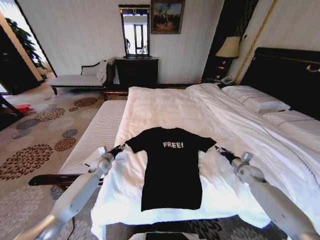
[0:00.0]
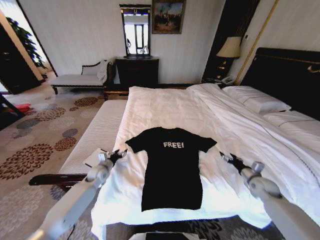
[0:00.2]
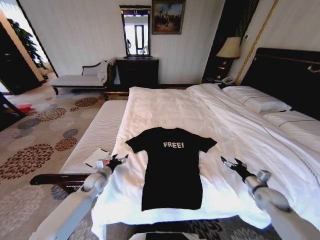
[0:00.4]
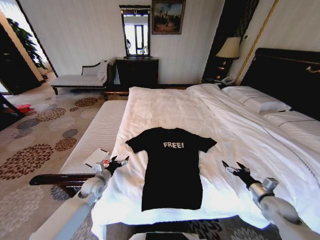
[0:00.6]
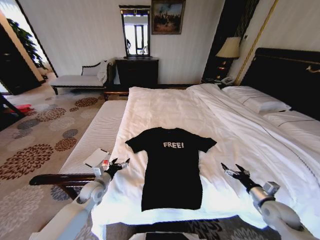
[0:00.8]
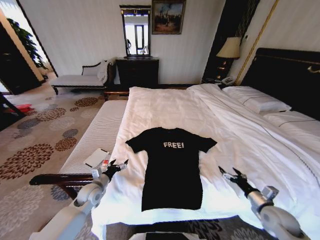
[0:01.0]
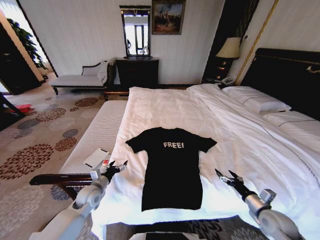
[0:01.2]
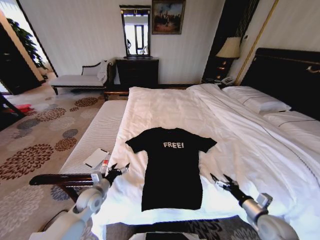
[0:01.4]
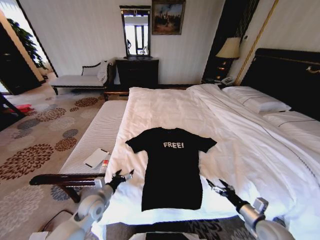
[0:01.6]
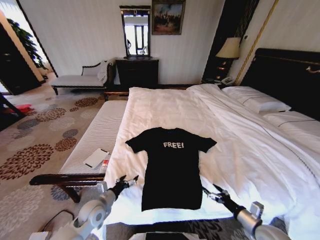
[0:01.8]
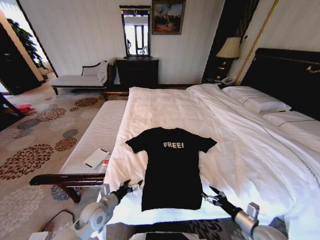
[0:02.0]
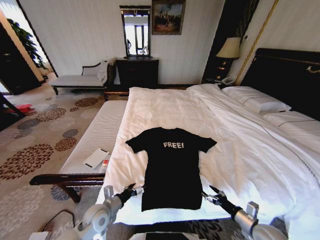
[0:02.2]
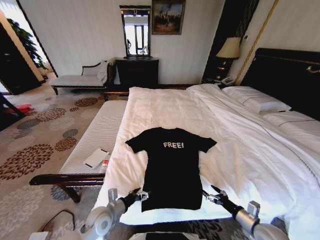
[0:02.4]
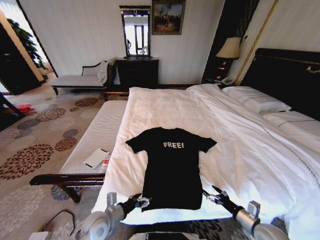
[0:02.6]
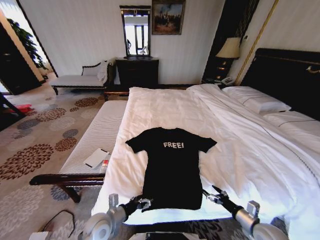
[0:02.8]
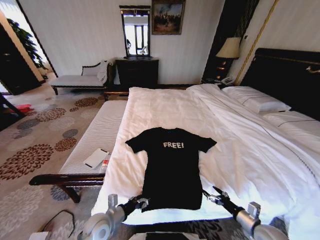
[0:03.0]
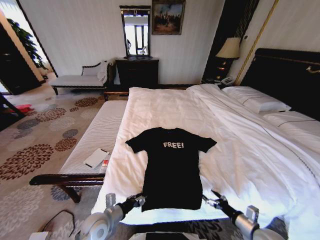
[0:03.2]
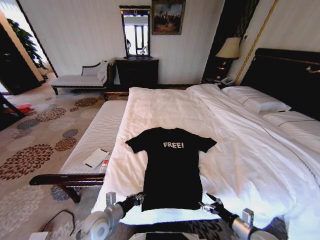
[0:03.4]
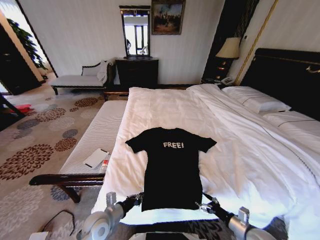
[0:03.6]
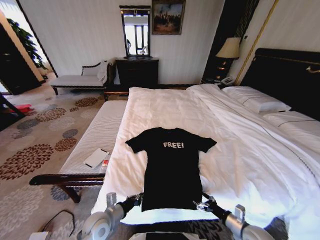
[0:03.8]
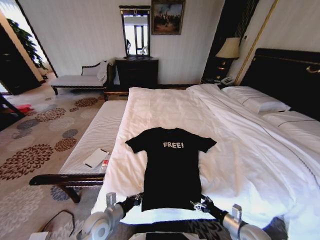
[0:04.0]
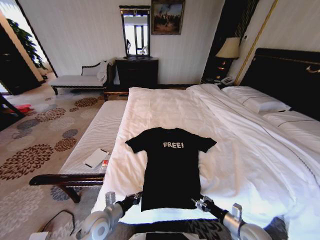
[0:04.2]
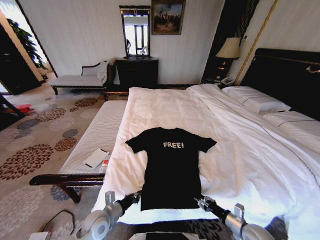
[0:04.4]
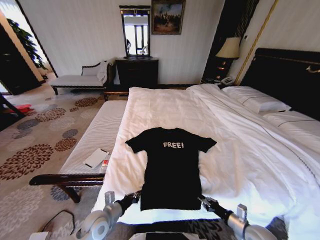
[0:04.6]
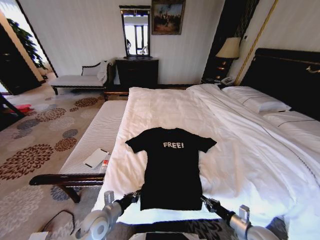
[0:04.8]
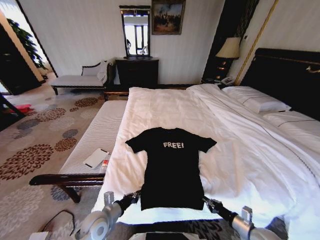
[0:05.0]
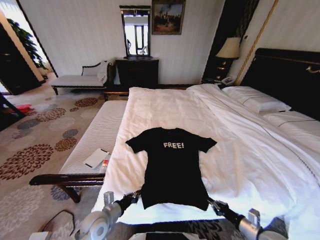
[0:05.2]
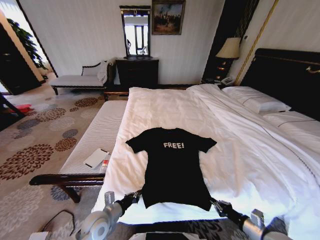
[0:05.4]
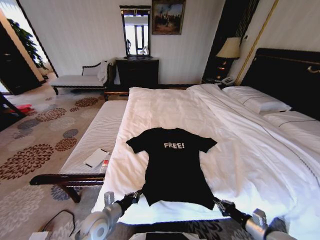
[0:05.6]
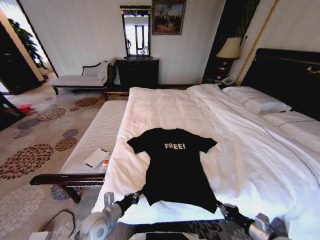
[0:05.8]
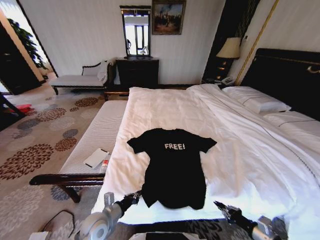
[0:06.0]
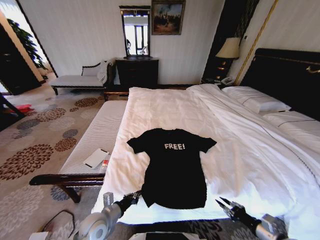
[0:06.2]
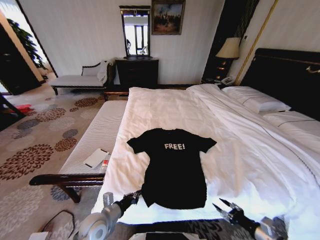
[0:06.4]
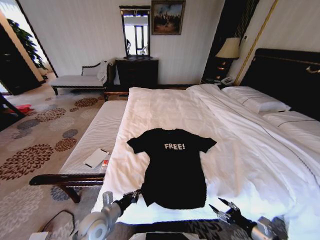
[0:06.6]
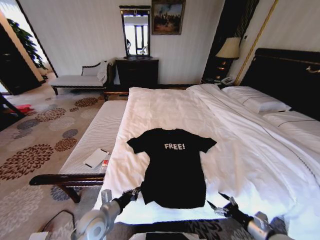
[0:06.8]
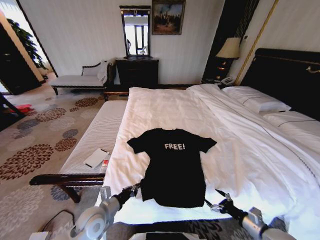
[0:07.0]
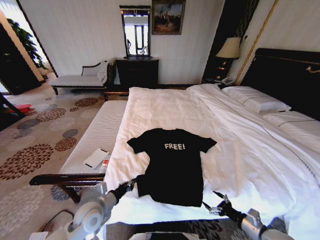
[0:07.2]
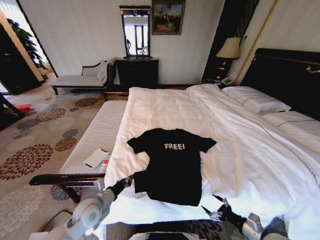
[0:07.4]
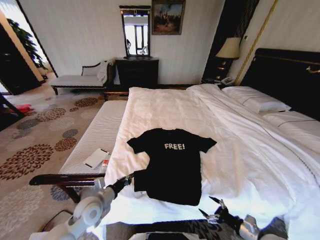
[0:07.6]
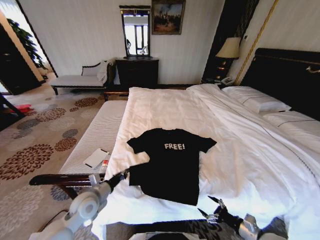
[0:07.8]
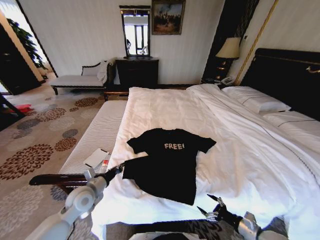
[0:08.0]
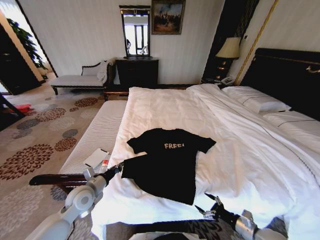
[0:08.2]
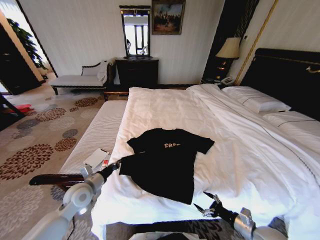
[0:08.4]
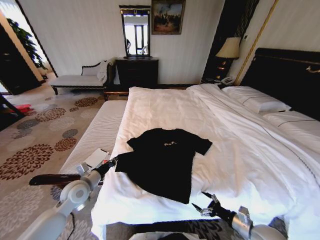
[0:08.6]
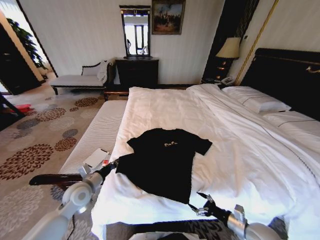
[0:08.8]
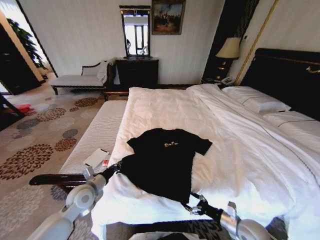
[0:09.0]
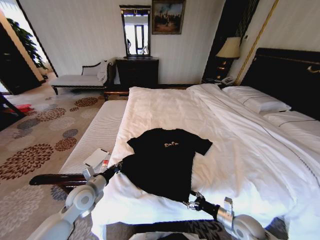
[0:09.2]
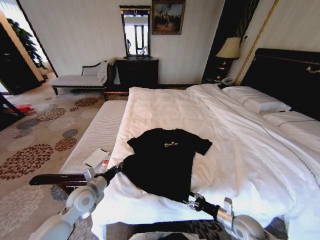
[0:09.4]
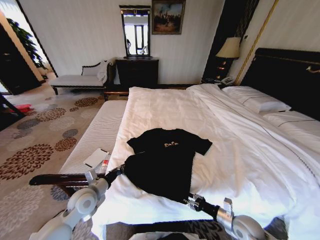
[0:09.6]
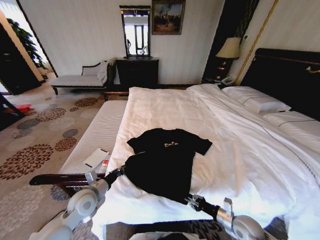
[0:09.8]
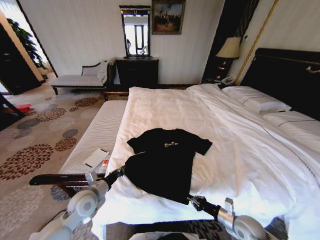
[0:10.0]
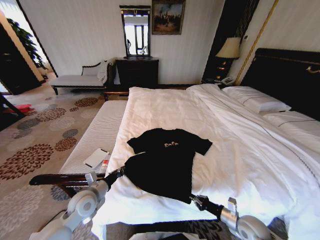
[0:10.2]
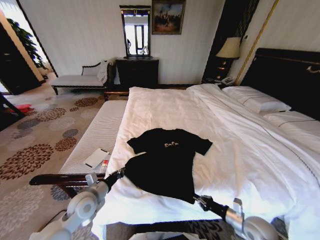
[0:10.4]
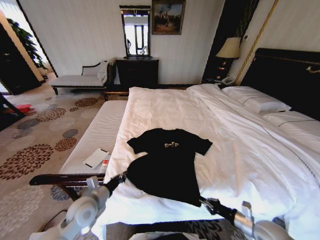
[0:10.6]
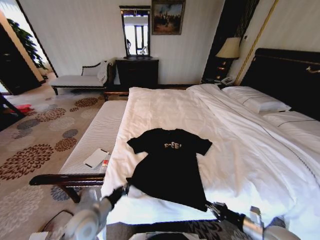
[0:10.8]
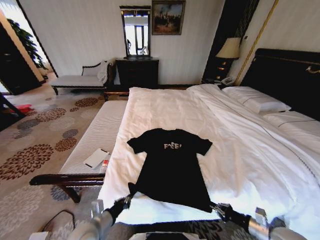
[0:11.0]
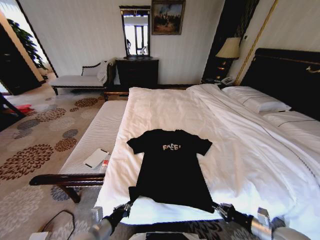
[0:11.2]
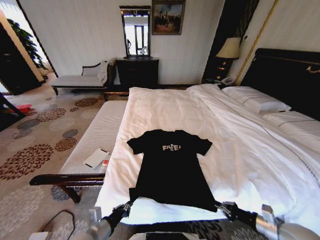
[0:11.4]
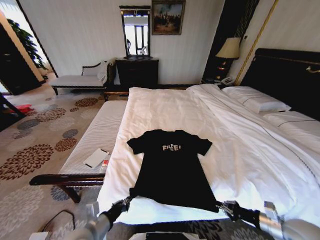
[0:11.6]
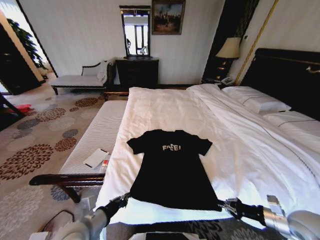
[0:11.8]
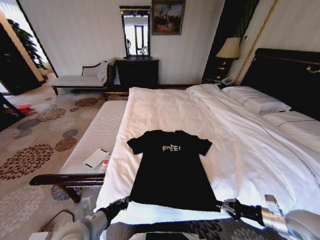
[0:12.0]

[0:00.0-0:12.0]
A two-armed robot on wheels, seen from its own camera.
Task of the whole recording: Fold the clothes on the bed.
0:00.0 to 0:01.6: The grippers both shift backward by approximately 20 cm. The left gripper opens, while the right gripper opens its fingers.
0:01.6 to 0:03.0: The left gripper is displaced backward by some 5 cm.
0:03.0 to 0:04.4: The left gripper closes up, while the right gripper closes.
0:04.4 to 0:06.0: The right gripper goes some 10 cm upward and backward, and closes its fingers.
0:06.0 to 0:07.6: The right gripper opens up. The left gripper changes place by about 5 cm.
0:07.6 to 0:09.0: The right gripper shifts roughly 5 cm to the left; the left gripper changes place by about 5 cm.
0:09.0 to 0:10.4: The right gripper closes up.
0:10.4 to 0:12.0: The left gripper shifts roughly 10 cm backward and upward. Meanwhile the right gripper shifts some 15 cm upward and to the right.

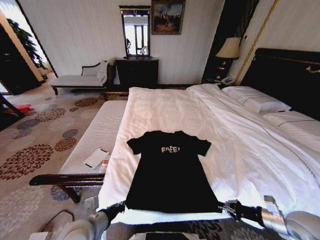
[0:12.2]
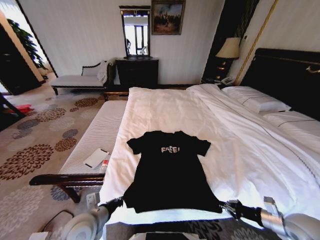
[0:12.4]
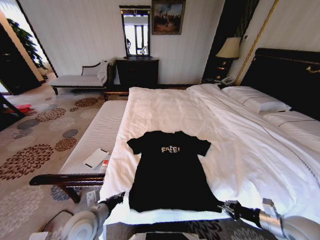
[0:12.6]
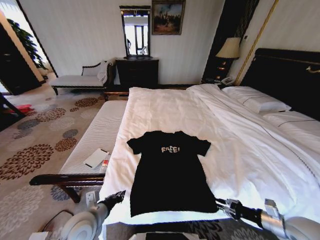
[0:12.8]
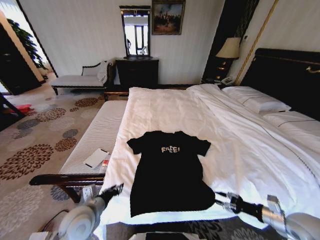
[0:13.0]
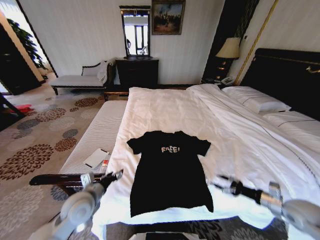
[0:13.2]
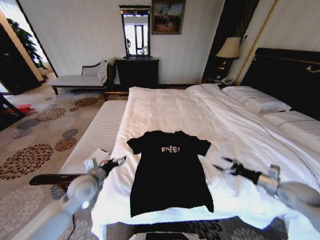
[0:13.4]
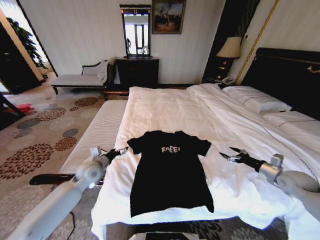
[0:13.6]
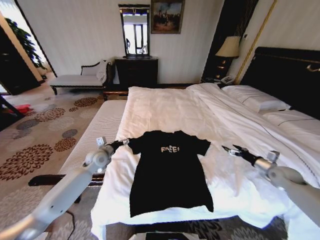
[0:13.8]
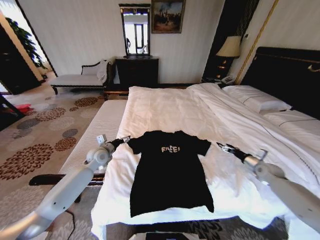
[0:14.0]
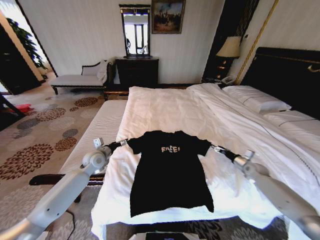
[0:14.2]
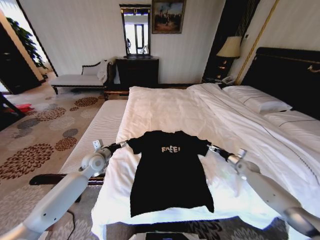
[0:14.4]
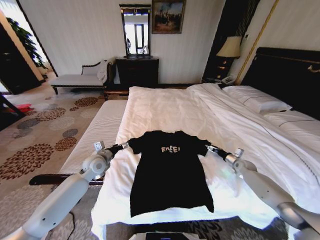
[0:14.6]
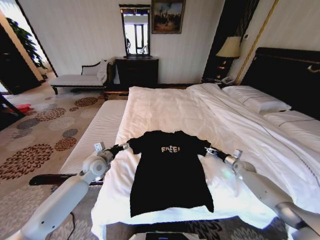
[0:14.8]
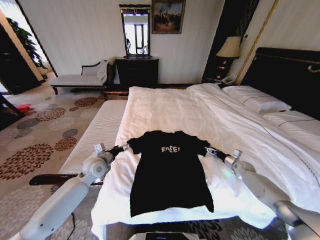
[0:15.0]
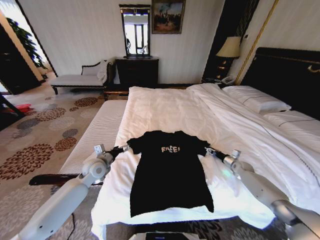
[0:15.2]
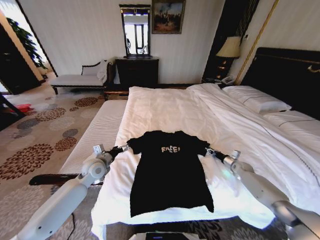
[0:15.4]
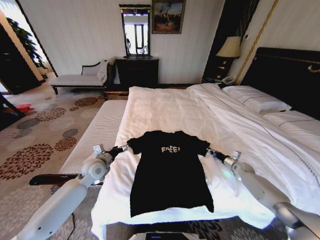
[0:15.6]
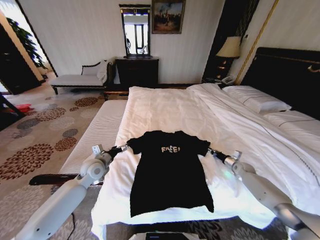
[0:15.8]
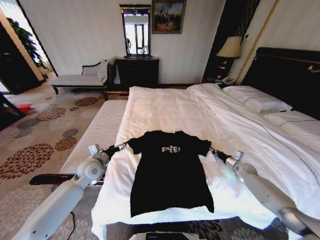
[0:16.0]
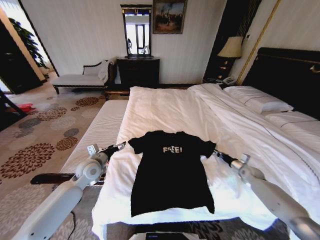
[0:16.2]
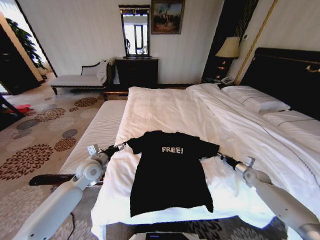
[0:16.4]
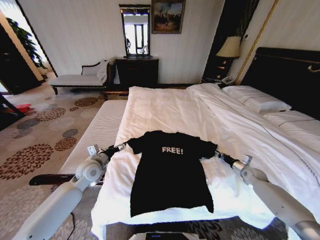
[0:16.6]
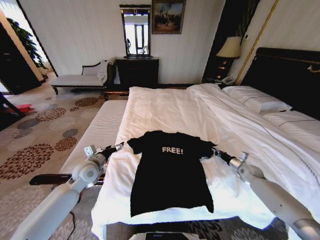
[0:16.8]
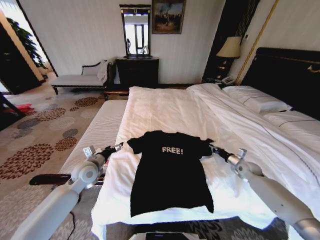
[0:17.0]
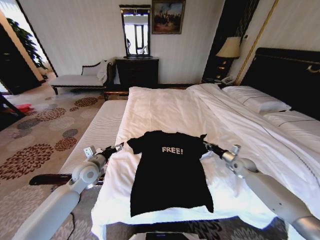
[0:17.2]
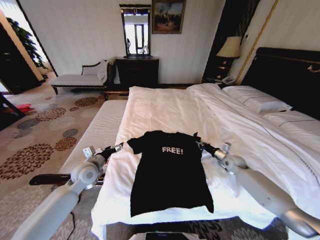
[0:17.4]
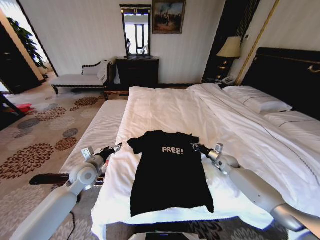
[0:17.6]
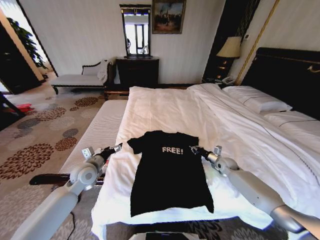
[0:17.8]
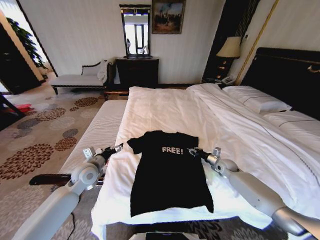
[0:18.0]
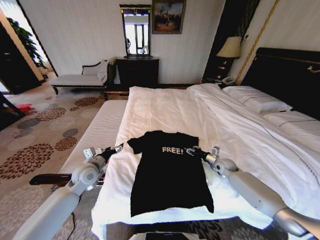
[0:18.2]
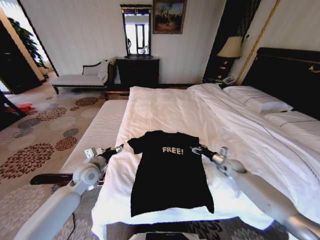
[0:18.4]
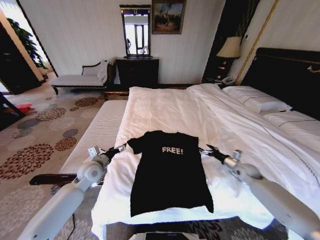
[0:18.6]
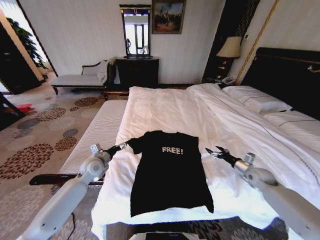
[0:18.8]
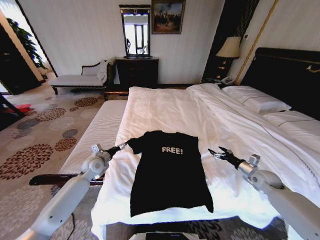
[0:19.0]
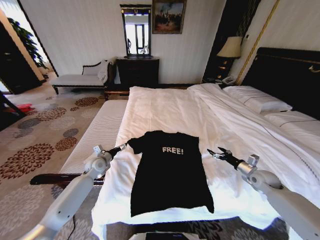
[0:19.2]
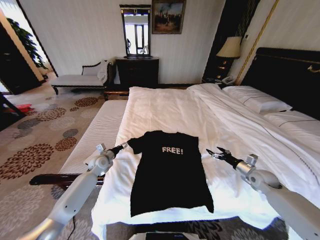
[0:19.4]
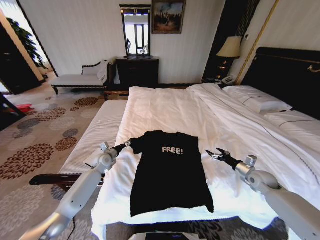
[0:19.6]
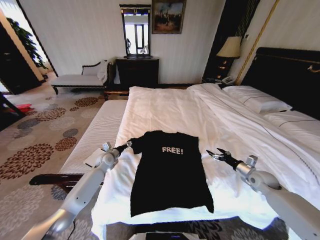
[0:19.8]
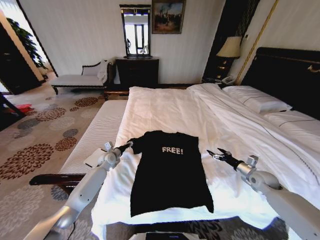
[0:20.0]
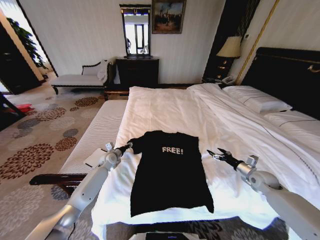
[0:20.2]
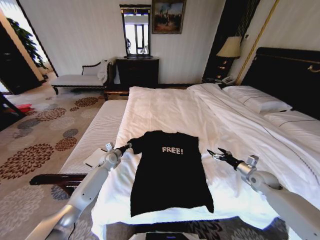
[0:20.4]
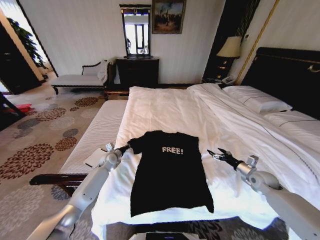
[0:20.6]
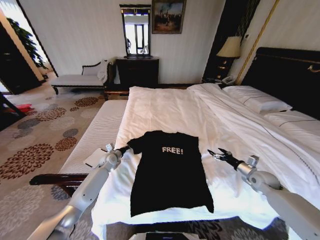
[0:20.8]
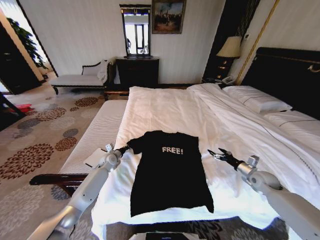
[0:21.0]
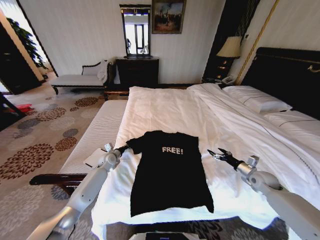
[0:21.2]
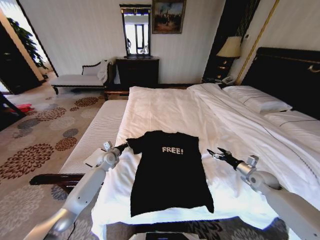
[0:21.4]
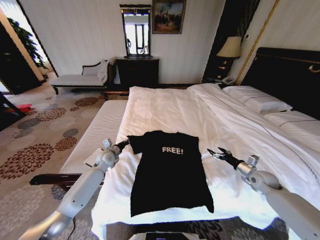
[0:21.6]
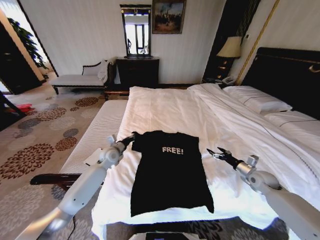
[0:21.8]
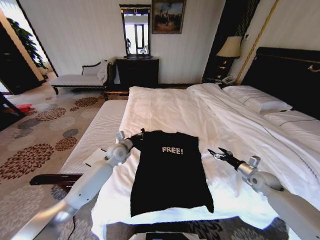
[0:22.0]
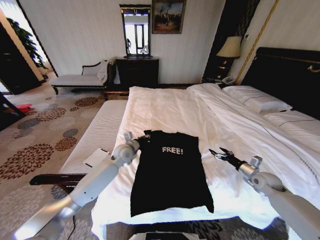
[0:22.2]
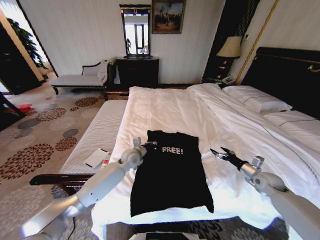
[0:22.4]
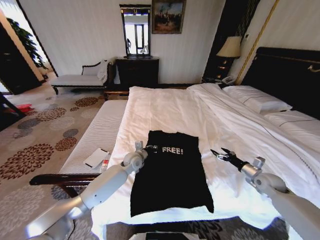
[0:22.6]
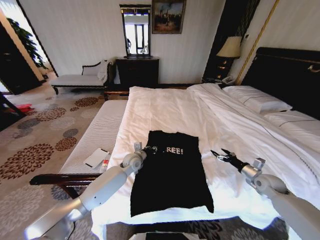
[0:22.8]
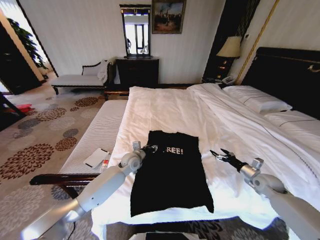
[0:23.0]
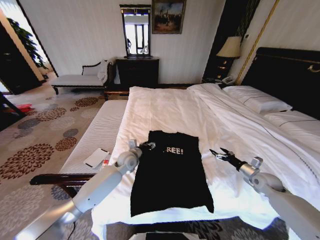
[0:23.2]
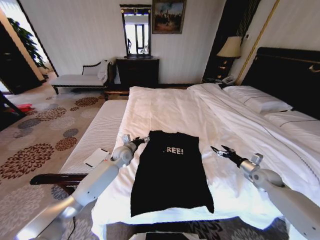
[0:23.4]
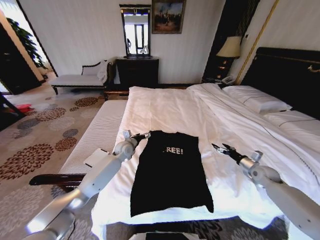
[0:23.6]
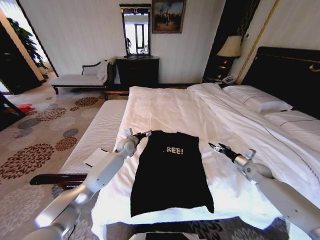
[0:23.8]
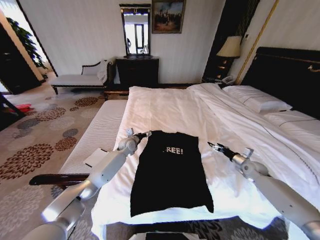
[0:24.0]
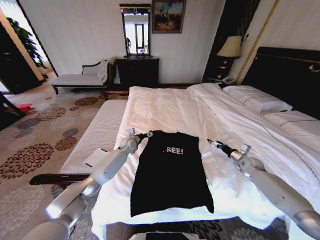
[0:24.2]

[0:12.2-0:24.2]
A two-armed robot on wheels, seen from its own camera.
Task of the whole recording: Fold the clothes on the bed.
0:12.2 to 0:13.8: The left gripper moves forward, roughly 25 cm, and opens, while the right gripper moves forward and to the right, about 20 cm, and opens up.
0:13.8 to 0:15.2: The right gripper travels downward, forward and to the left by approximately 15 cm.
0:15.2 to 0:16.6: The right gripper heads backward, covering approximately 5 cm, and closes up.
0:16.6 to 0:18.2: The right gripper shifts approximately 15 cm to the left, and opens its fingers.
0:18.2 to 0:19.8: The left gripper is displaced forward and downward by roughly 15 cm. Meanwhile the right gripper is displaced to the right and backward by some 15 cm, and opens up.
0:19.8 to 0:21.2: The left gripper closes.
0:21.2 to 0:22.6: The left gripper is displaced to the right by roughly 15 cm.
0:22.6 to 0:24.2: The two grippers go about 10 cm forward. The left gripper opens up.
